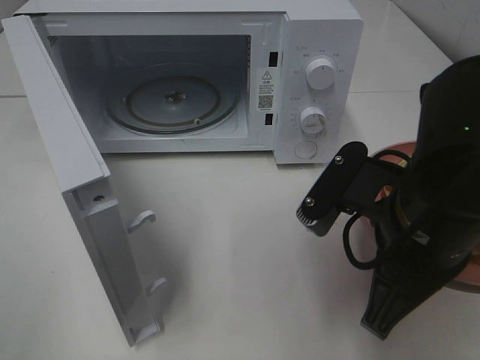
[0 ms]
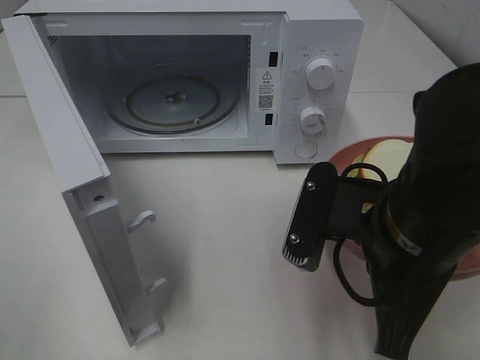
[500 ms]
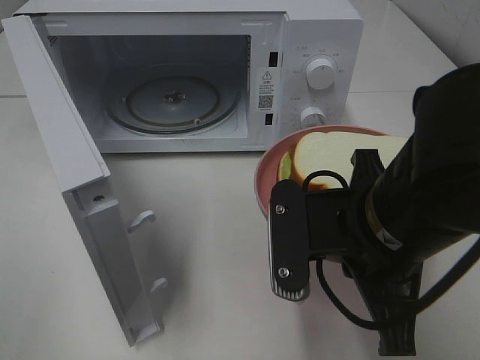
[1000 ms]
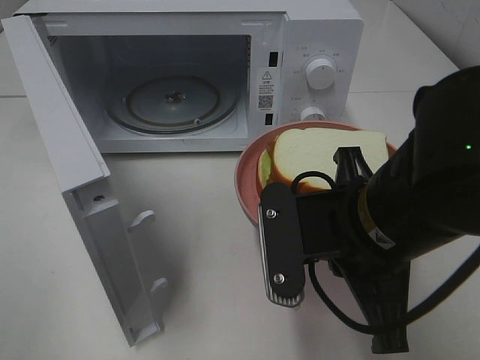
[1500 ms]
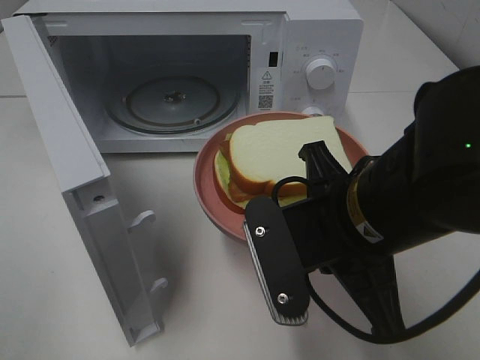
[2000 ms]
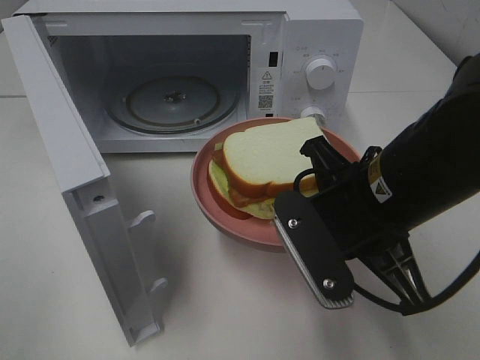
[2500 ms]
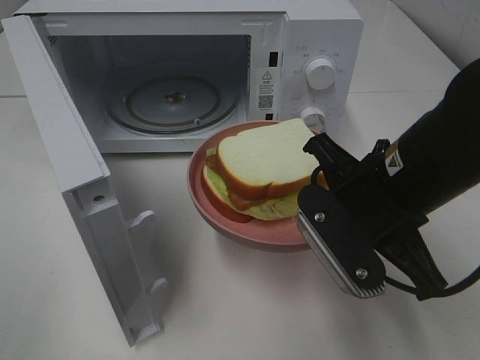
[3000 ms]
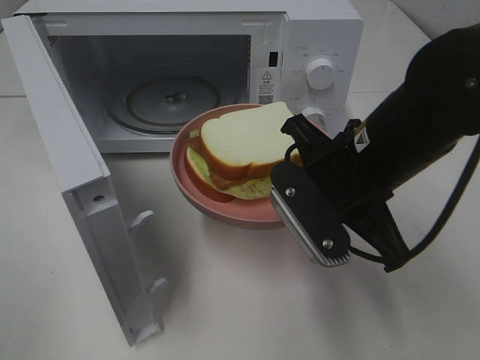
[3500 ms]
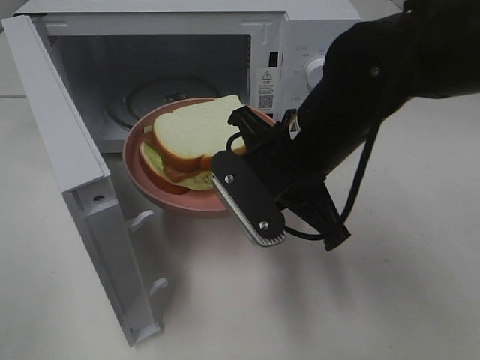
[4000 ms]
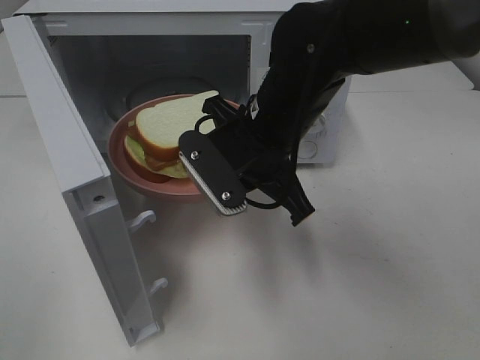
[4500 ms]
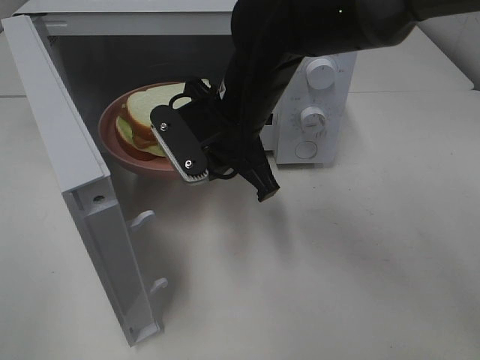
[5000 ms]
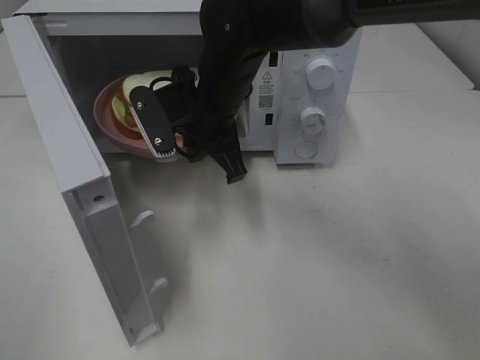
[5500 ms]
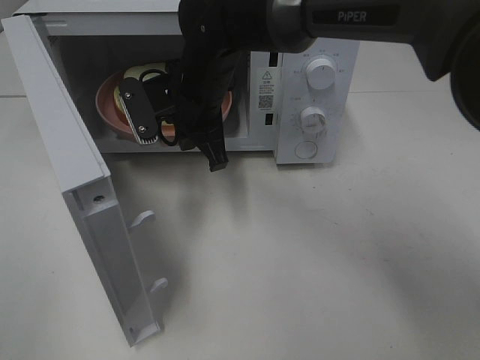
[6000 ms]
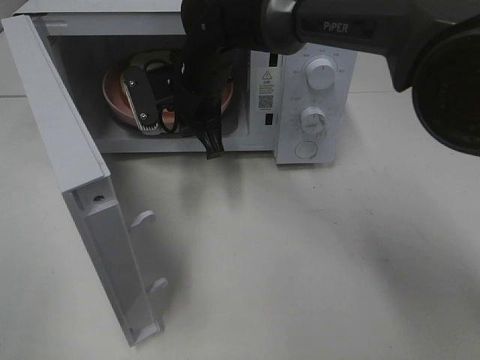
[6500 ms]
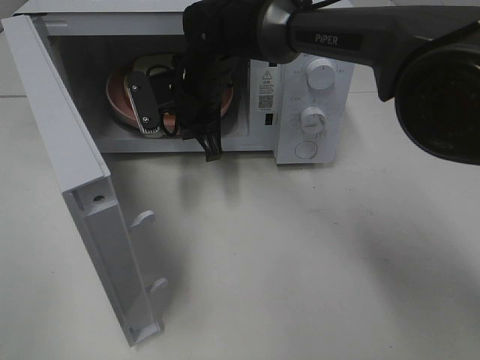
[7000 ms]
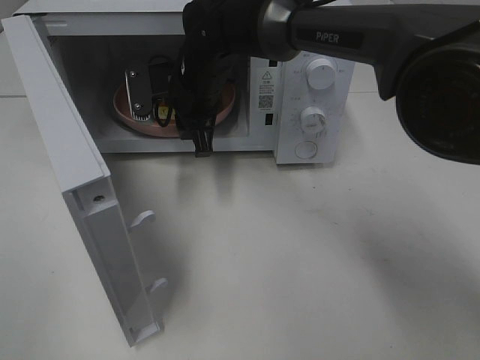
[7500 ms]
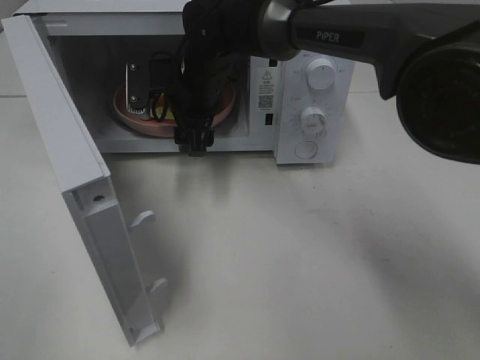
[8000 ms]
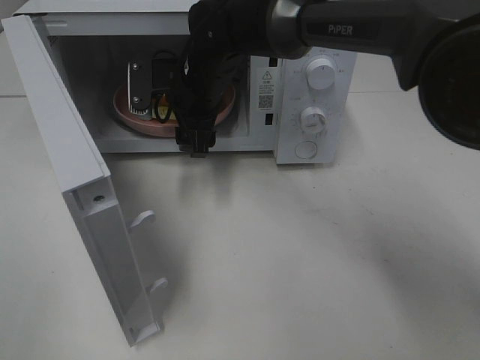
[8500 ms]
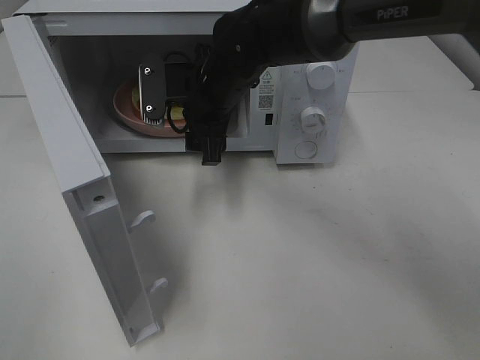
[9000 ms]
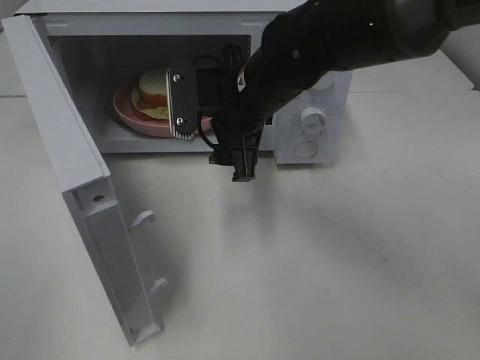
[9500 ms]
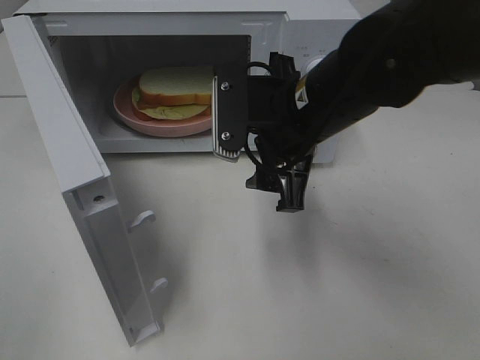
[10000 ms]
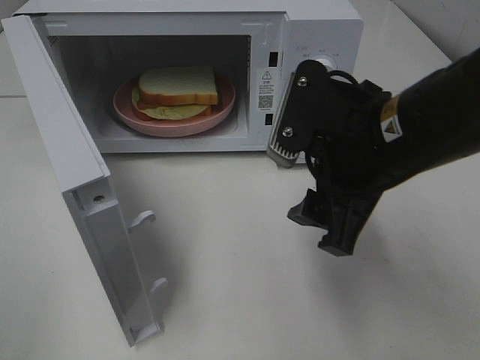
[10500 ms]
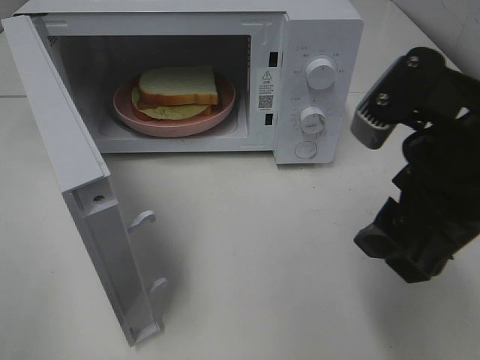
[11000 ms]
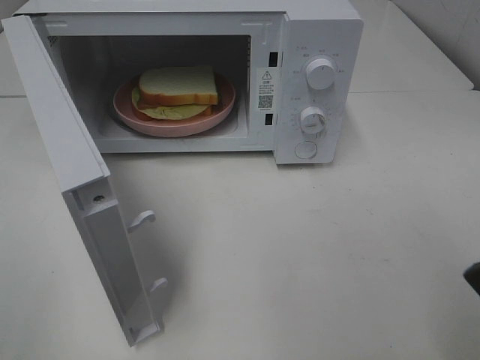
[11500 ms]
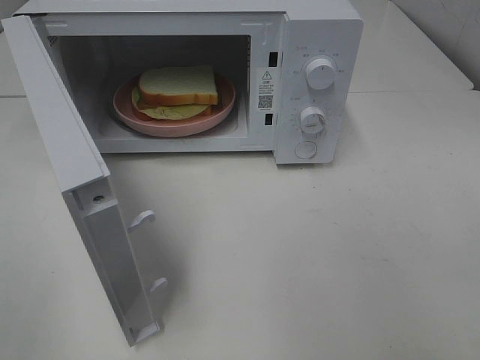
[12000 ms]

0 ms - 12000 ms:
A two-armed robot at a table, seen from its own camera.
Task of the whole recording: Heat Sandwich.
Step, 0 ms - 9000 ms: Right hand: place the plate in the microwave.
2000 ms - 4000 ms: The right gripper heads forward, covering some 10 cm.
4000 ms - 6000 ms: The right gripper travels forward and to the left by roughly 15 cm.
6000 ms - 8000 ms: The right gripper opens its fingers.
8000 ms - 10000 ms: The right gripper heads backward and to the right, covering approximately 20 cm.
10000 ms - 12000 ms: The right gripper heads backward, to the right and upward, covering about 30 cm.

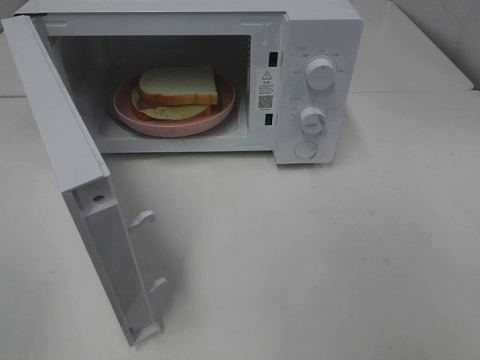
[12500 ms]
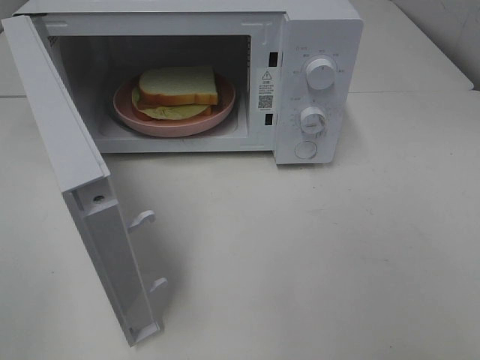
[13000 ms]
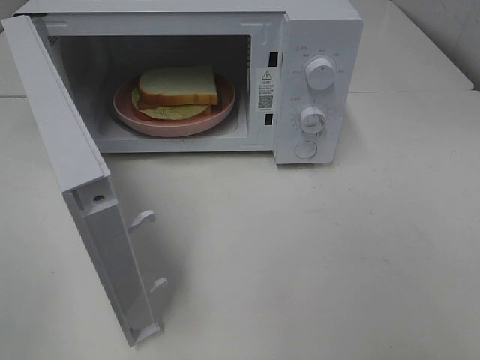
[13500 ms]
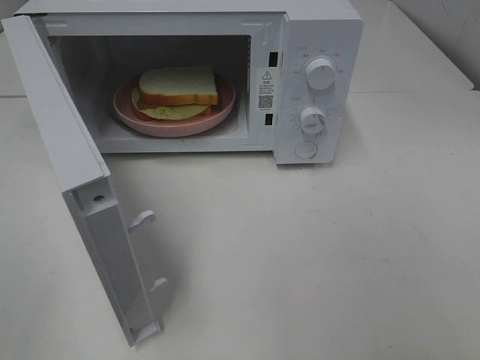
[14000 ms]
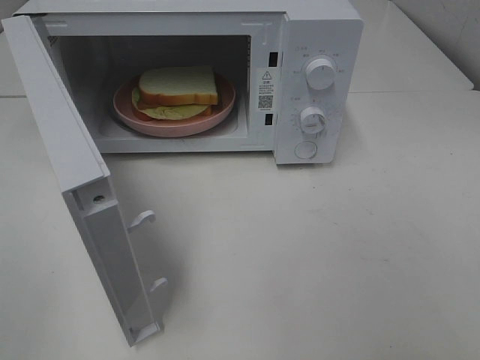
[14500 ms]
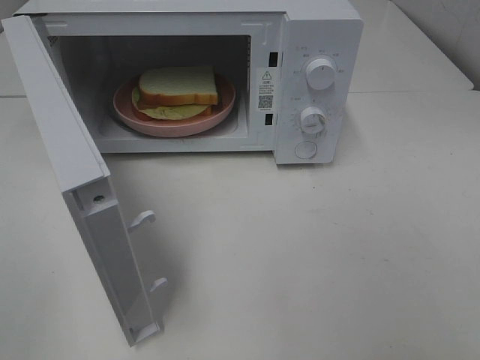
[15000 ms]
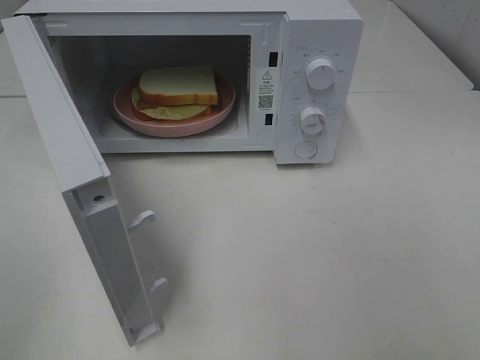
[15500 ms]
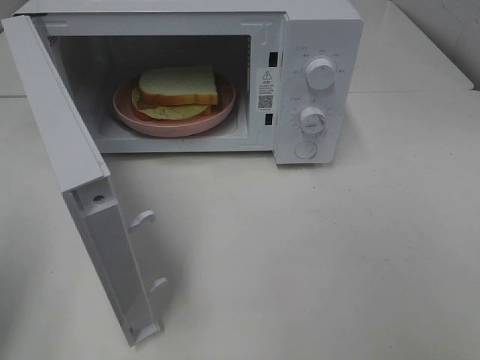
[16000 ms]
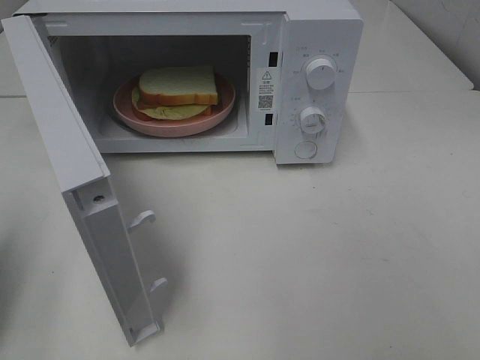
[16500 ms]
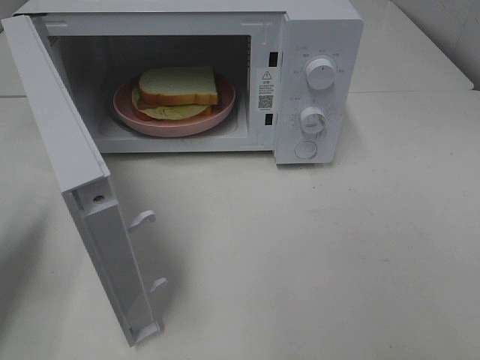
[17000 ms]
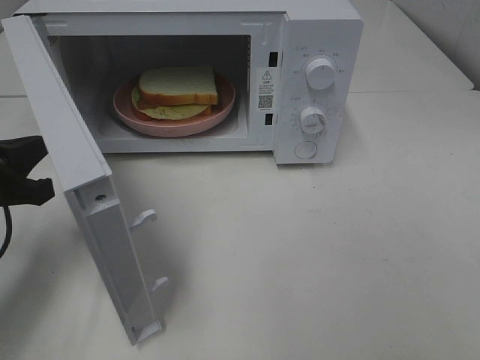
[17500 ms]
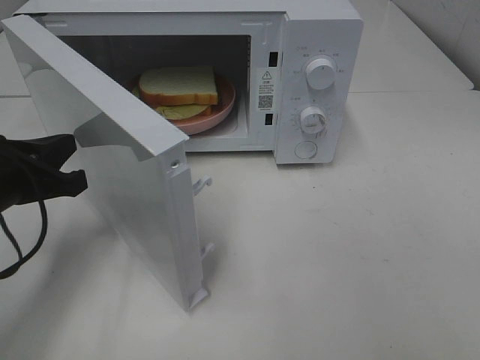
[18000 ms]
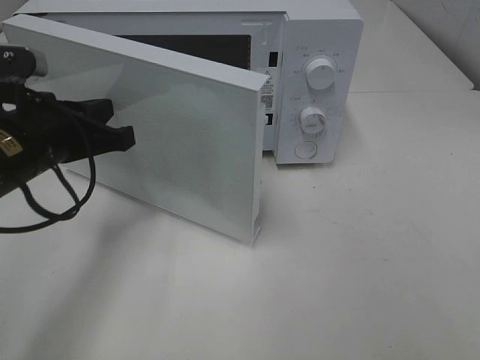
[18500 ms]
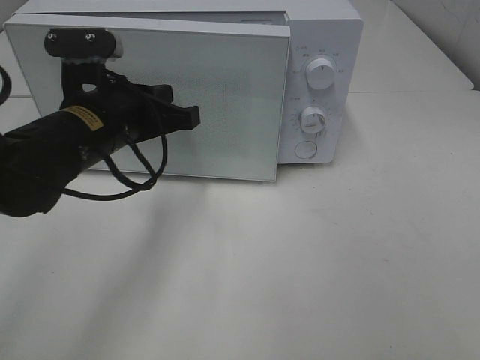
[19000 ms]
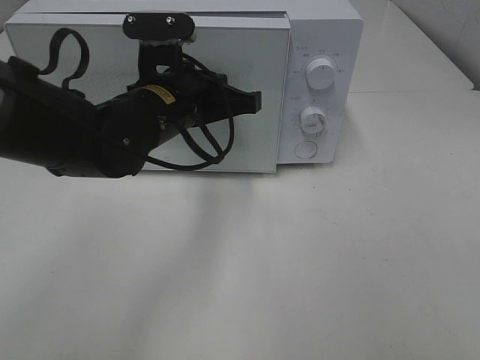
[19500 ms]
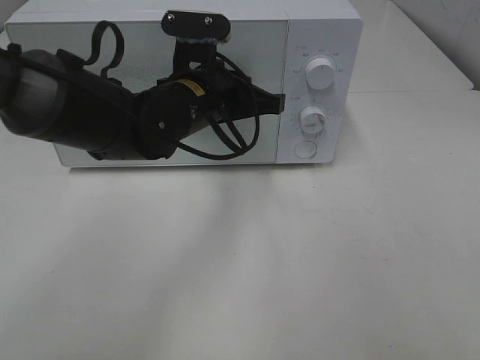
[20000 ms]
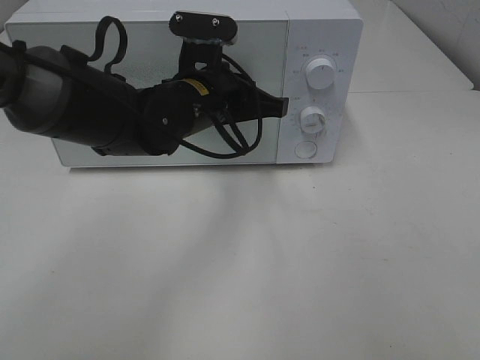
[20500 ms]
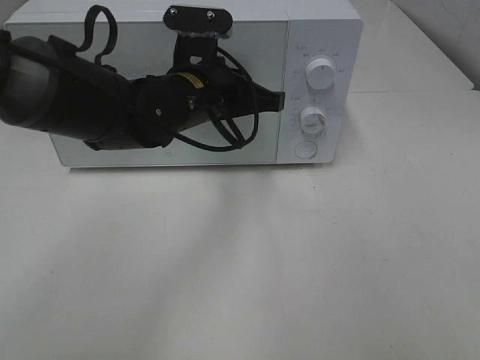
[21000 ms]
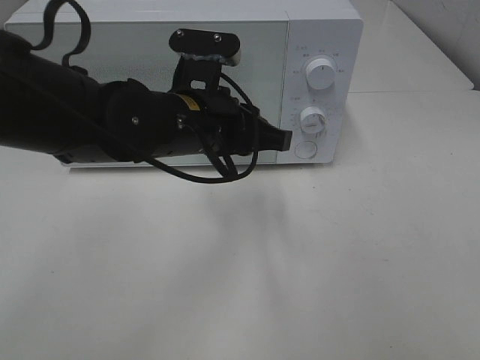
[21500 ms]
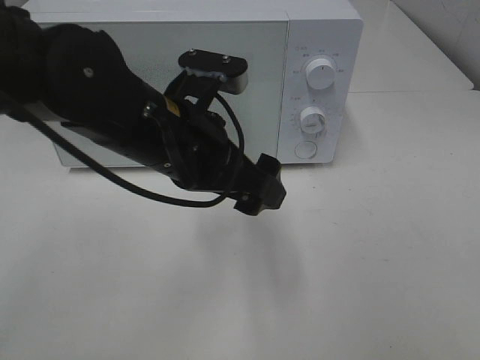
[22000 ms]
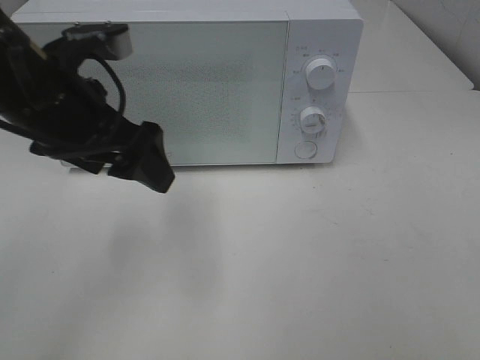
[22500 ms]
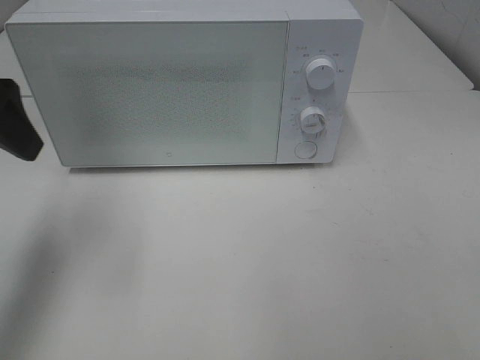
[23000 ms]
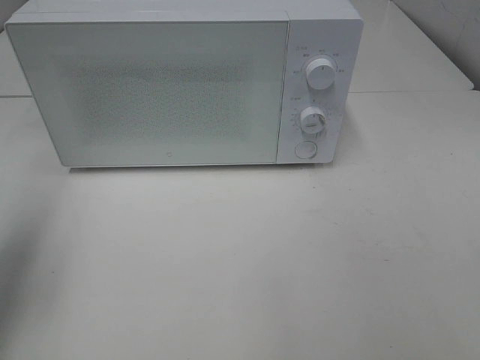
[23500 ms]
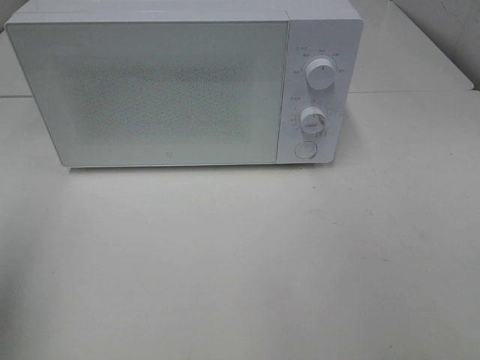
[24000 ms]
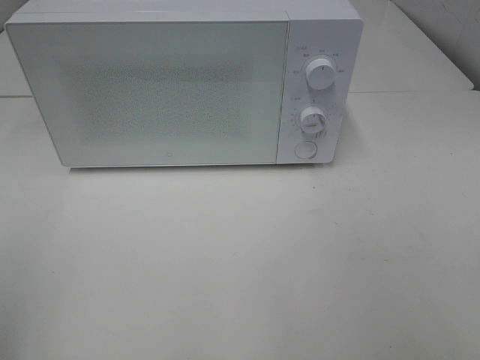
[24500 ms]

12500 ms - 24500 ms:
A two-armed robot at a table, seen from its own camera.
Task of the whole recording: Heat Sandwich.
Step, 12500 ms - 21500 ms: Left hand: close the microwave door.
14500 ms - 16500 ms: The left gripper heads forward, covering roughly 15 cm, and closes its fingers.
16500 ms - 18500 ms: The left gripper travels to the right, forward and downward by approximately 20 cm.
18500 ms - 20500 ms: The left gripper travels to the right and forward by approximately 15 cm.
20500 ms - 22500 ms: The left gripper goes approximately 15 cm to the left, backward and upward, and opens.
22500 ms - 24500 ms: The left gripper is displaced backward and to the left by some 25 cm.

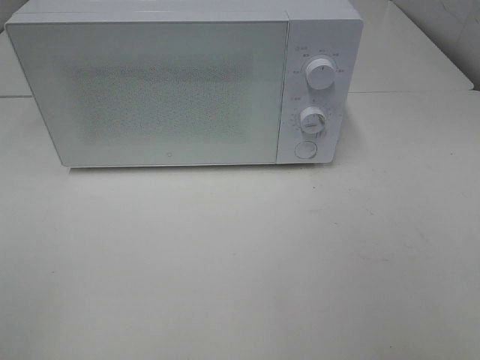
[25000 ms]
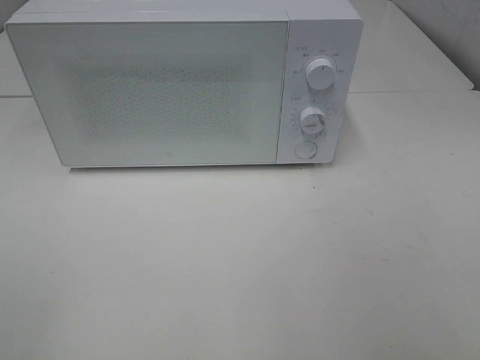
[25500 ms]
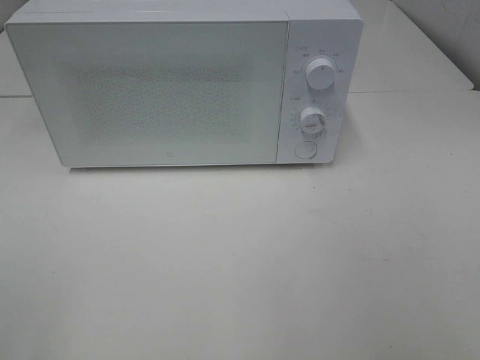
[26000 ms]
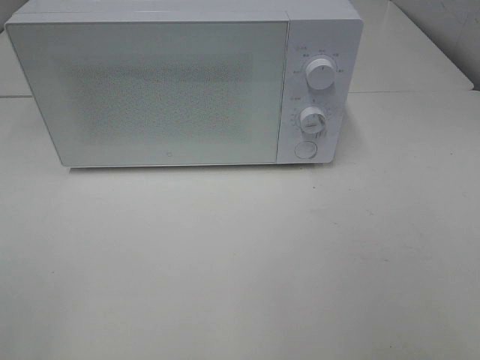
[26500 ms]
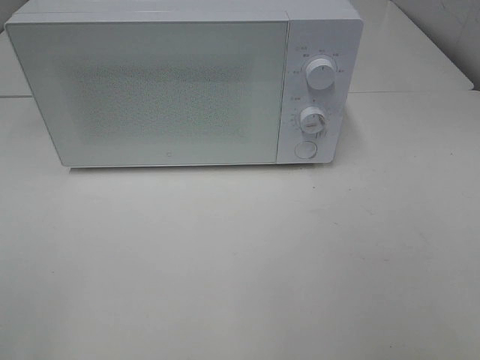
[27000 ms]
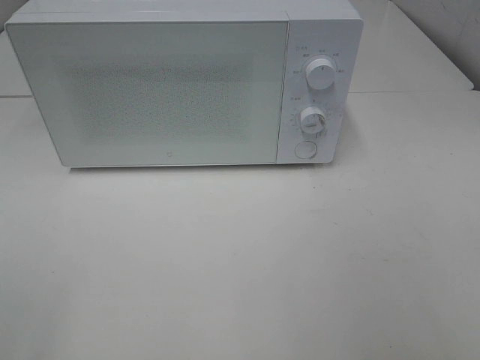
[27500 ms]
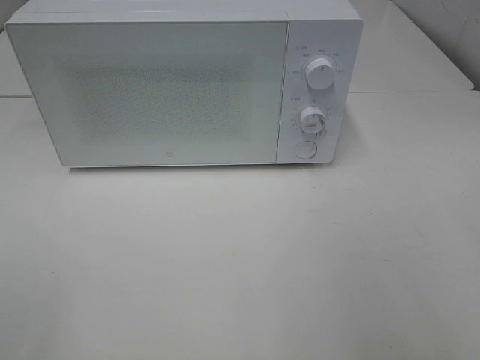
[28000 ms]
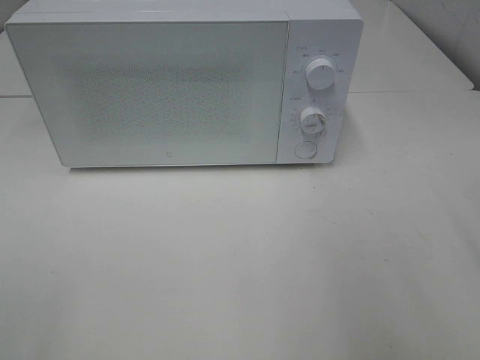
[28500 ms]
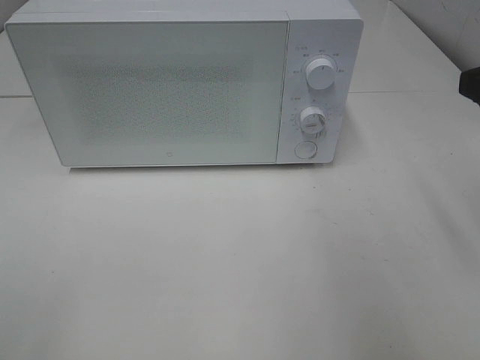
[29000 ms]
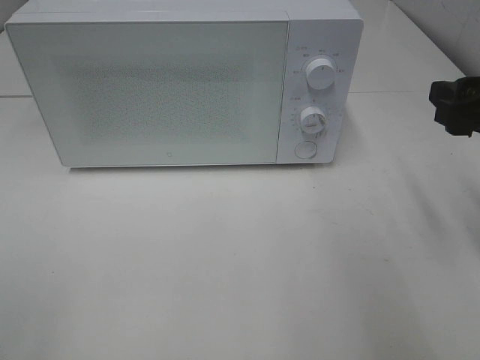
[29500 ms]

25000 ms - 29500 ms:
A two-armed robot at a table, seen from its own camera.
Task of the whole recording: Heat Sandwich.
27000 ms - 29500 ms: The right gripper is displaced forward by roughly 25 cm.
